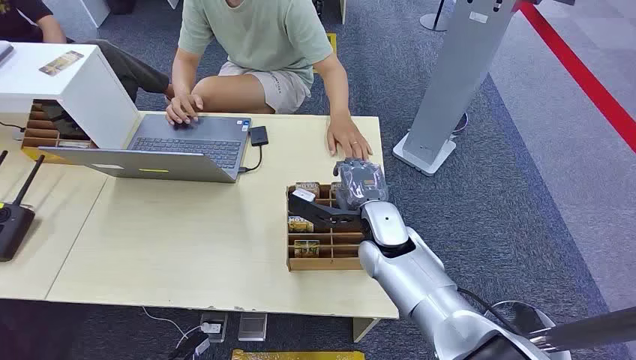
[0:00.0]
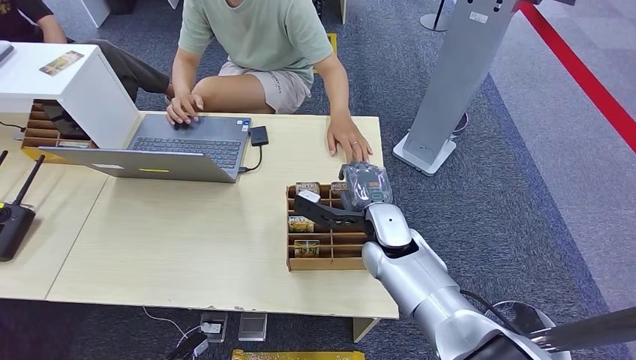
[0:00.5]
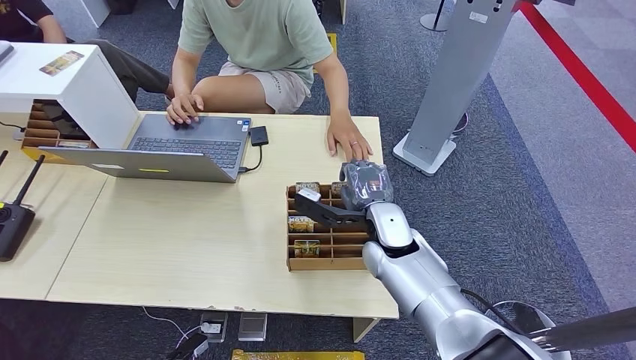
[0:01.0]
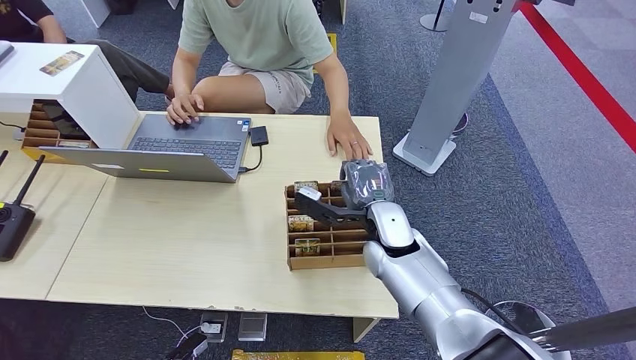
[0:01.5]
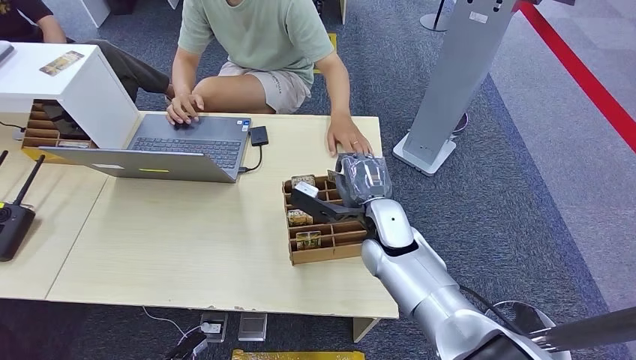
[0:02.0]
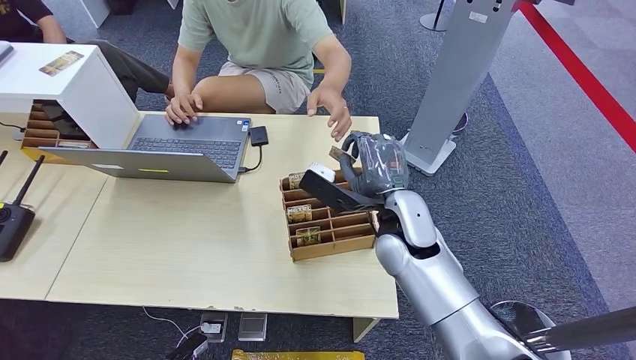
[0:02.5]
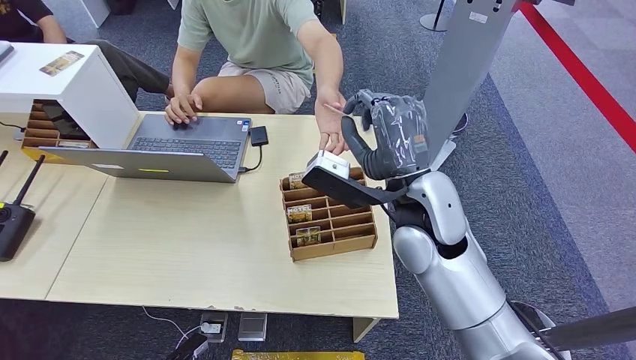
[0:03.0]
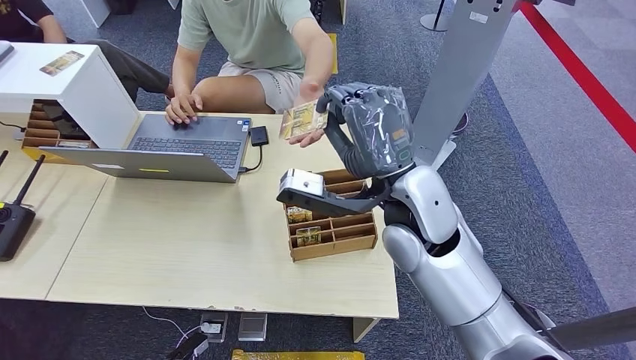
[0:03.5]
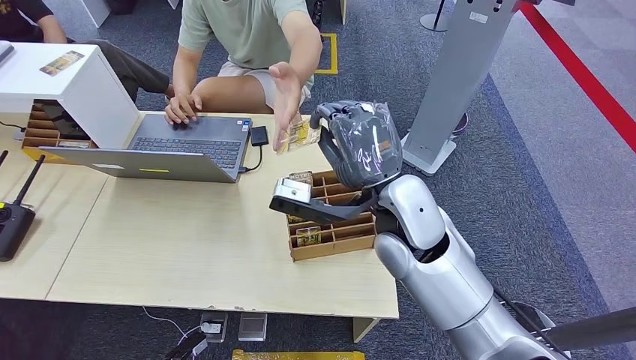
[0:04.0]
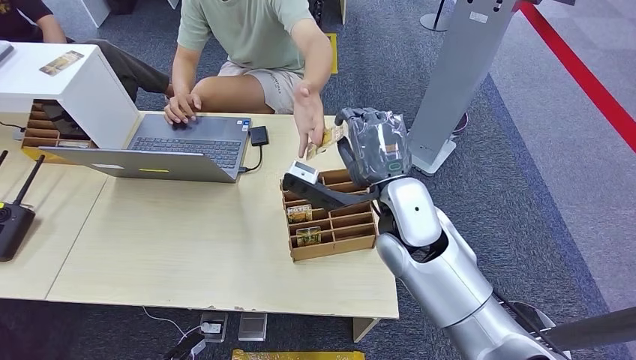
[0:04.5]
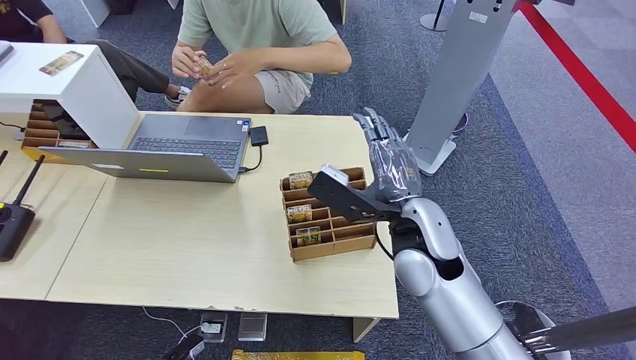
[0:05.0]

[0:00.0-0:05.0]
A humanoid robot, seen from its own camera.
Step, 0:00.0 to 0:02.0: Pick up the key card from the card box.
Step, 0:03.0 to 0:05.0: Hand the key card to the target.
0:02.5 to 0:05.0: The right hand goes upward and returns, approximately 10 cm each way.
